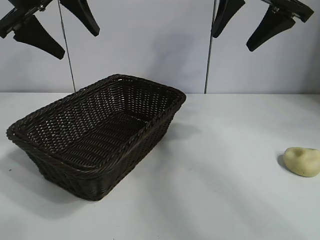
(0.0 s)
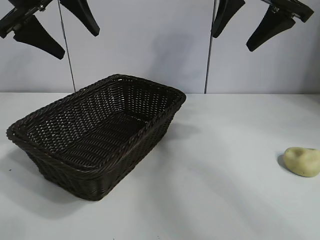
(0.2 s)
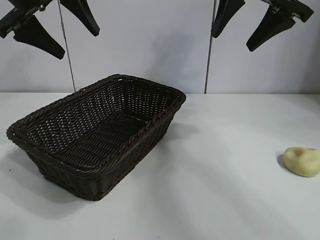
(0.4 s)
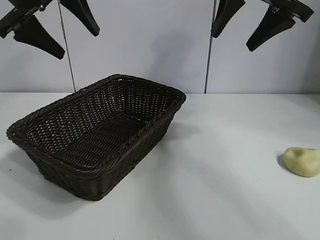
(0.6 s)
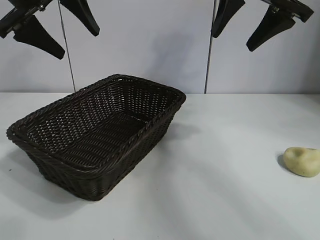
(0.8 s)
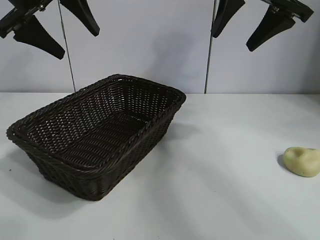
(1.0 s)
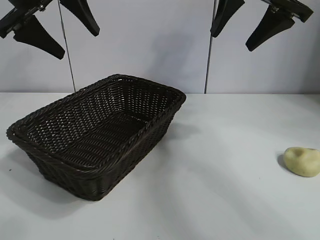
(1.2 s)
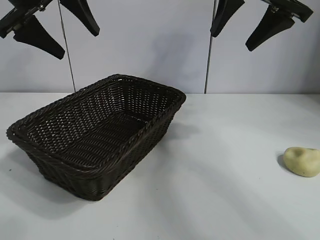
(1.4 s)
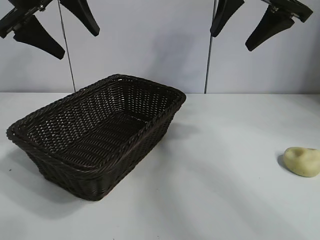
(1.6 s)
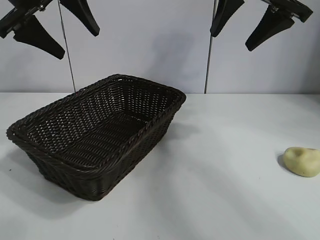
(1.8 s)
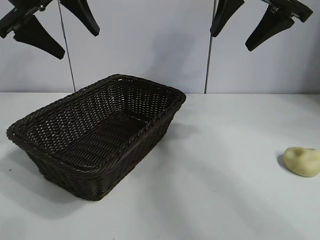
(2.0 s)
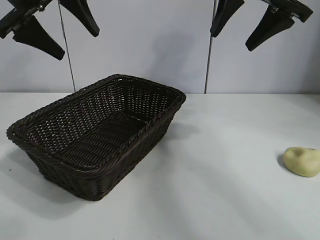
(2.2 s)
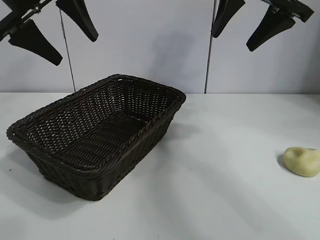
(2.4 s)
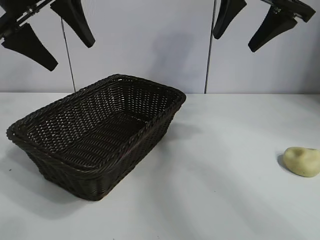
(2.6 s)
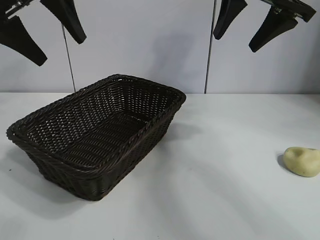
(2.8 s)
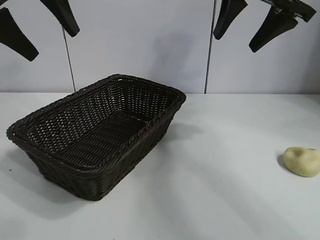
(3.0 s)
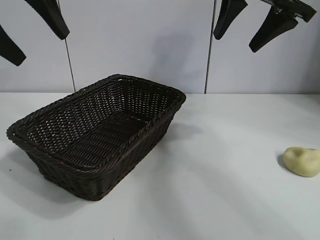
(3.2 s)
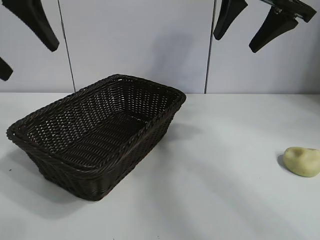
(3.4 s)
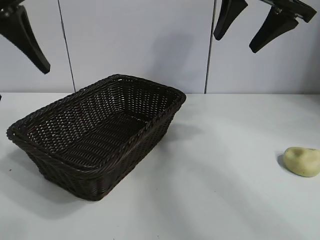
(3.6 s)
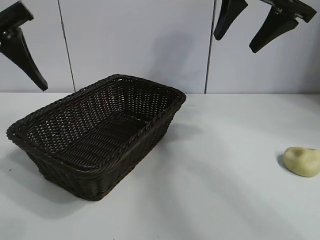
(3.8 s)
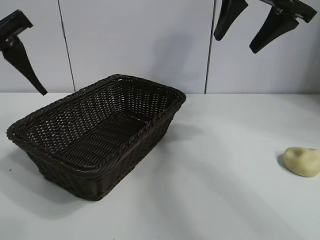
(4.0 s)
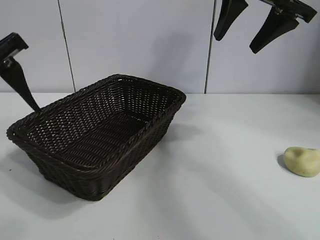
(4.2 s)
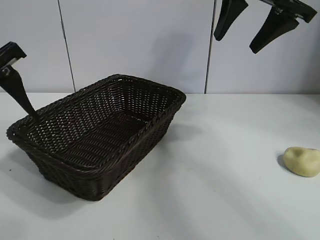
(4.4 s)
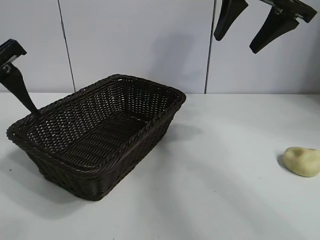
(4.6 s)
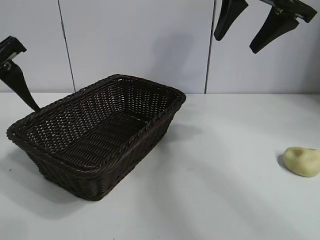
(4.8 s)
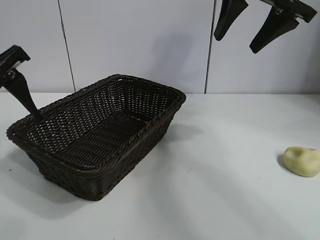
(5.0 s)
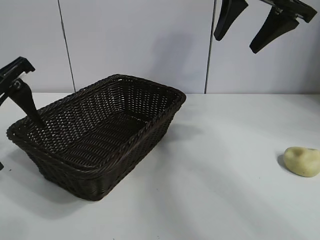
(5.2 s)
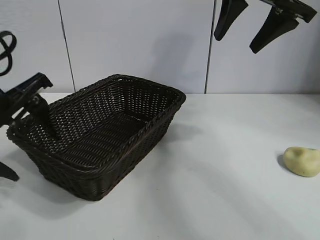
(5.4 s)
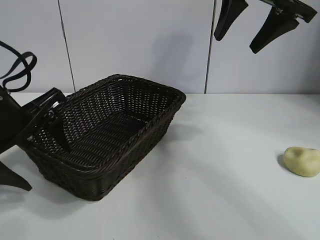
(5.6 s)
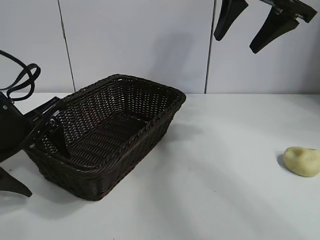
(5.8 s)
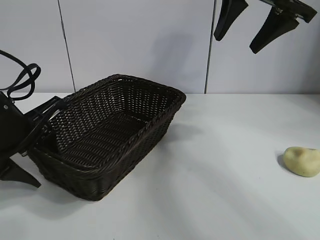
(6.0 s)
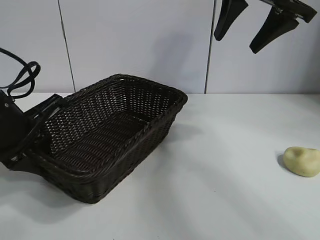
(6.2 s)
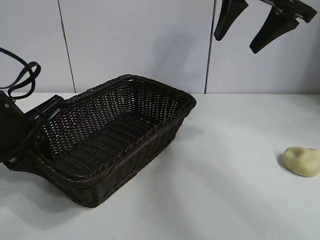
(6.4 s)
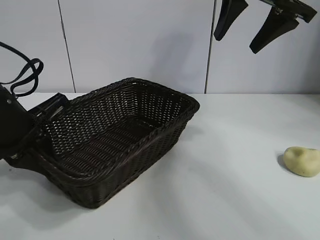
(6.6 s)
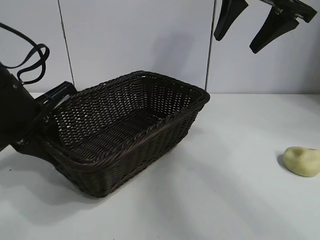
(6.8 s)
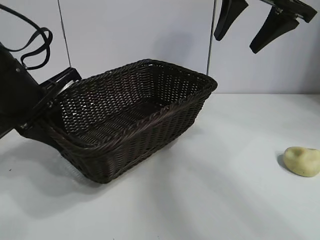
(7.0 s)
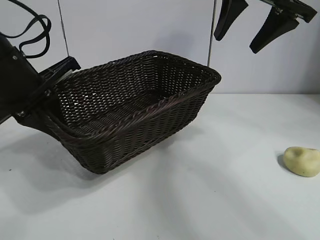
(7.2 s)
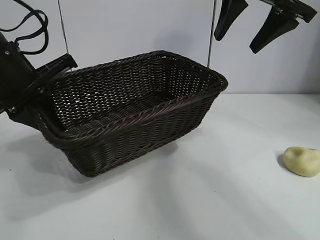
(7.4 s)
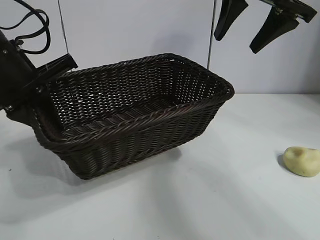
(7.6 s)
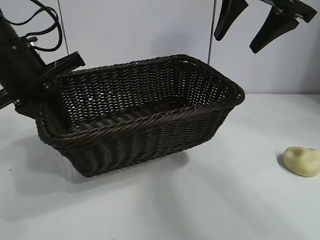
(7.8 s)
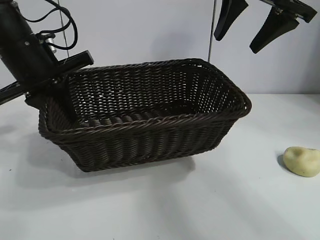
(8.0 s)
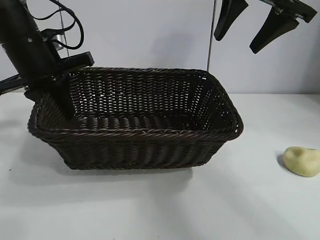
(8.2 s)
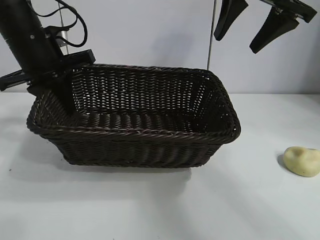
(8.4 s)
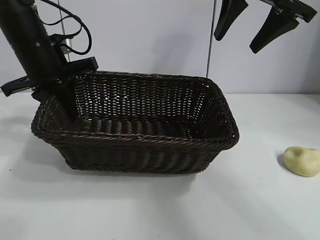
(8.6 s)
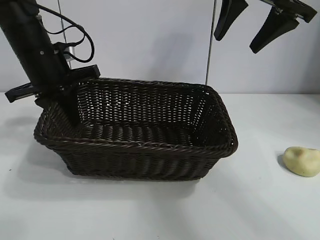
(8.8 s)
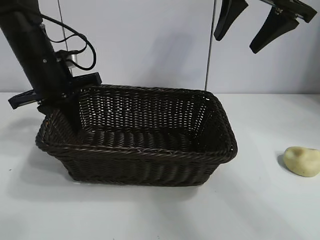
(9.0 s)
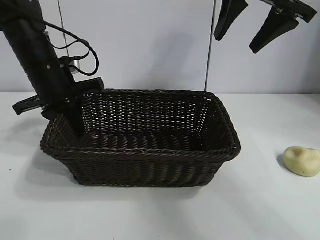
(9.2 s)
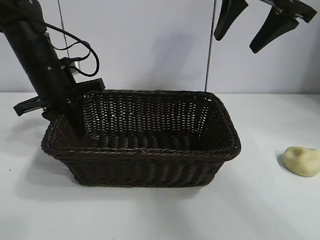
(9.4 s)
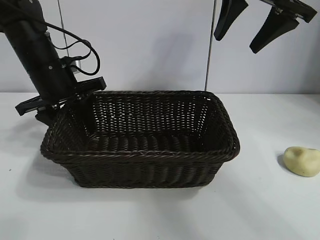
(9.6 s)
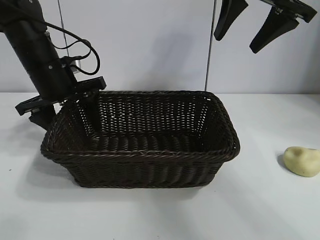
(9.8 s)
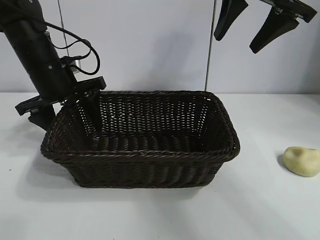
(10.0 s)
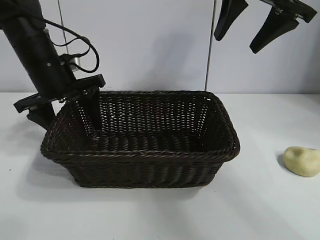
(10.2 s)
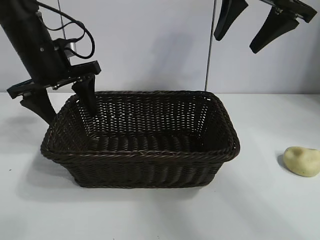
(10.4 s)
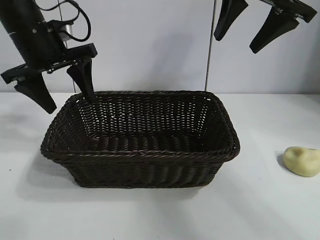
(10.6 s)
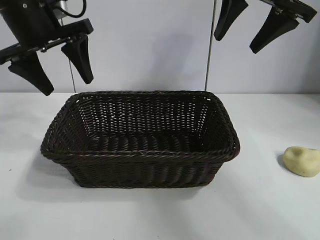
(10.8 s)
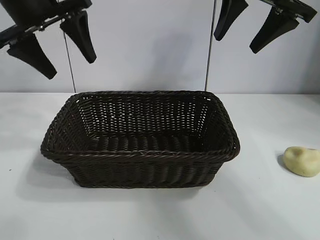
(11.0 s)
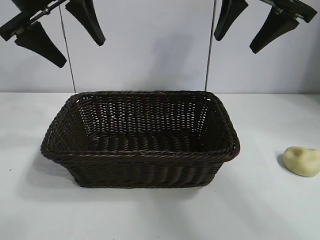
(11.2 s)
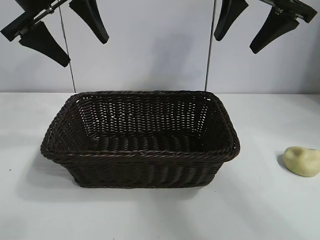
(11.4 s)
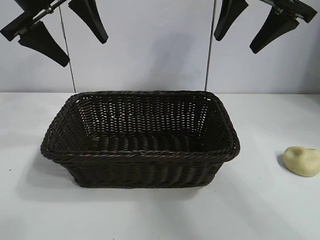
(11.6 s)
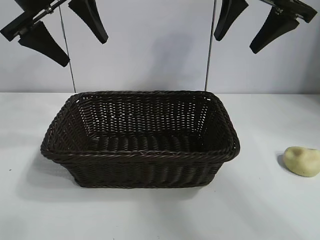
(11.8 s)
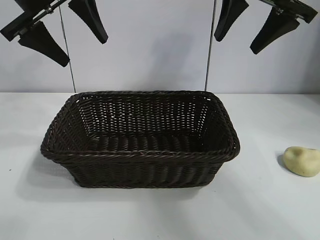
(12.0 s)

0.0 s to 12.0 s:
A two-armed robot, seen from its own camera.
Task of the whole recording: pick up the egg yolk pastry and put it into the basket.
Step, 2.2 to 6.0 s: Grasp the basket with left gripper.
Step, 6.4 to 10.0 s: Place the basket in the center of view with left gripper.

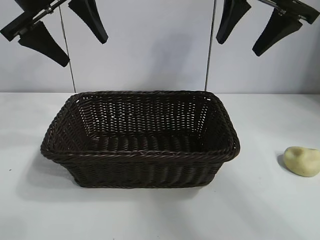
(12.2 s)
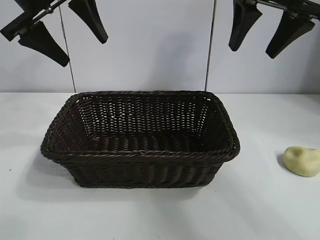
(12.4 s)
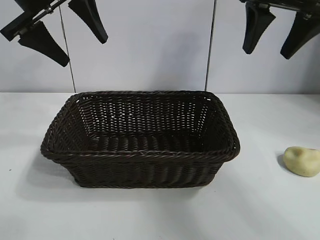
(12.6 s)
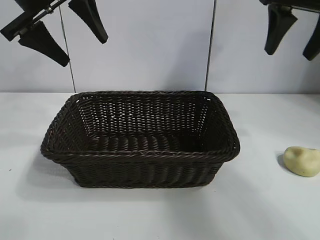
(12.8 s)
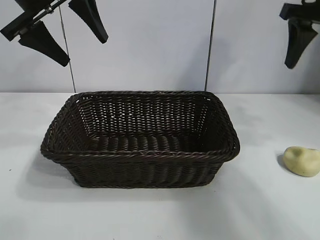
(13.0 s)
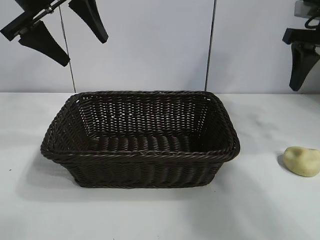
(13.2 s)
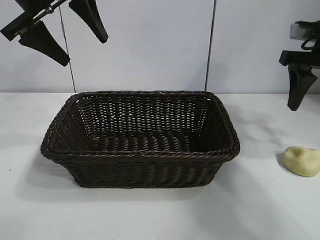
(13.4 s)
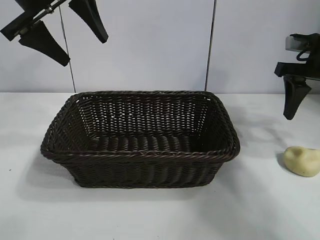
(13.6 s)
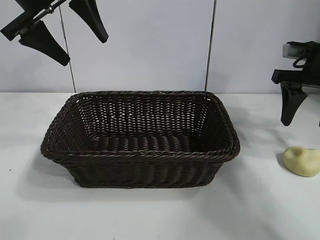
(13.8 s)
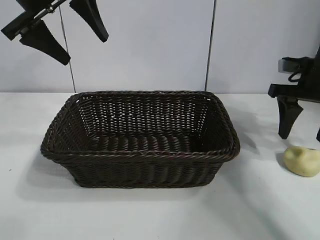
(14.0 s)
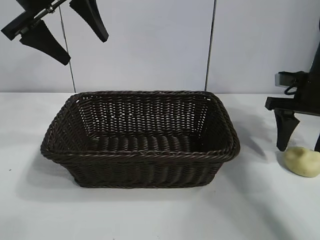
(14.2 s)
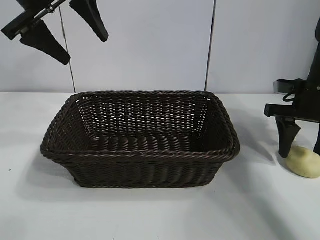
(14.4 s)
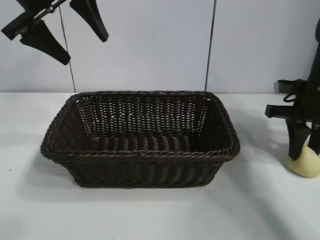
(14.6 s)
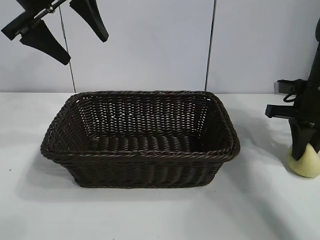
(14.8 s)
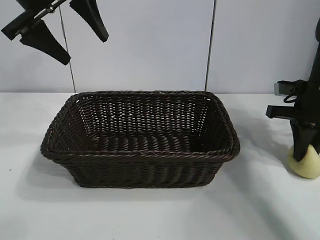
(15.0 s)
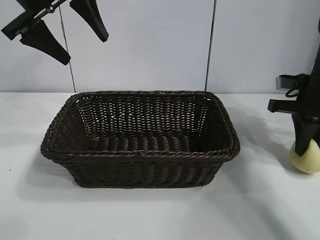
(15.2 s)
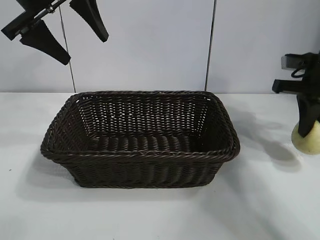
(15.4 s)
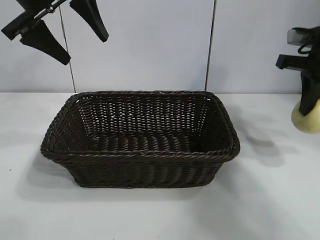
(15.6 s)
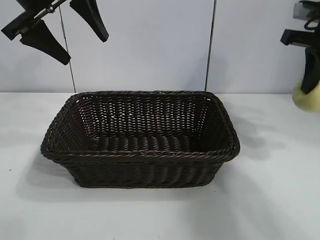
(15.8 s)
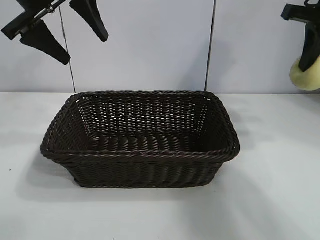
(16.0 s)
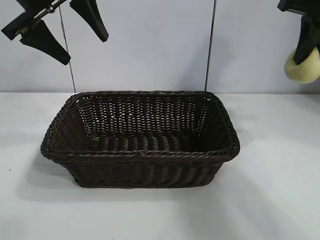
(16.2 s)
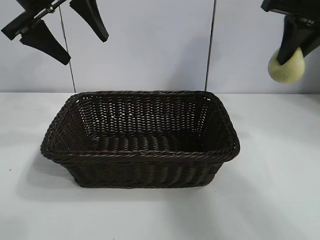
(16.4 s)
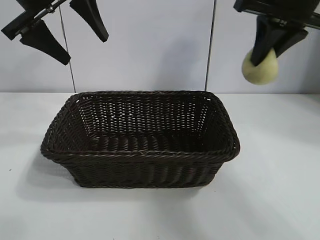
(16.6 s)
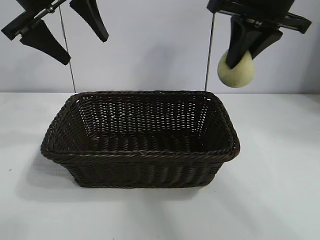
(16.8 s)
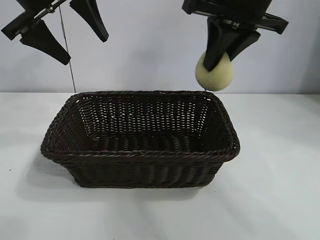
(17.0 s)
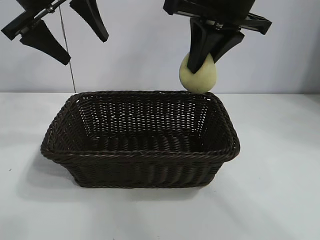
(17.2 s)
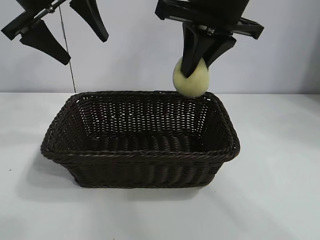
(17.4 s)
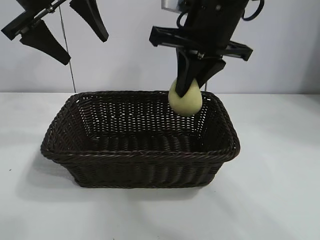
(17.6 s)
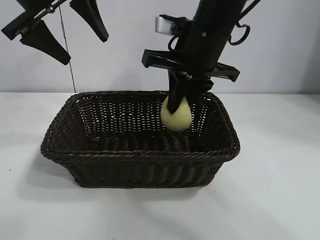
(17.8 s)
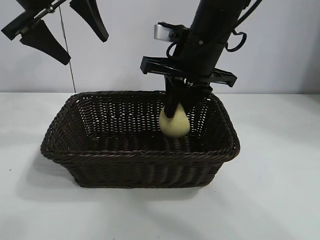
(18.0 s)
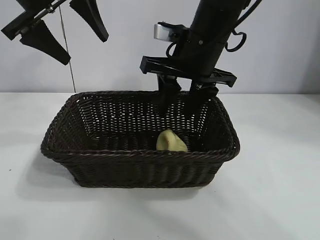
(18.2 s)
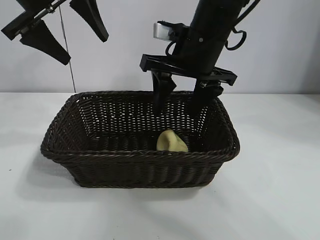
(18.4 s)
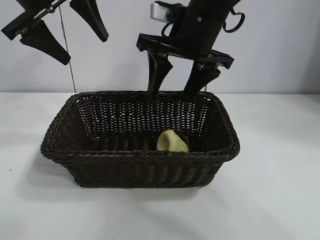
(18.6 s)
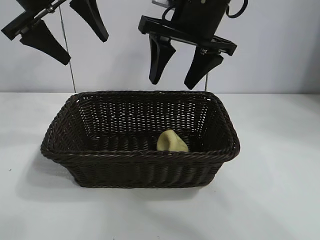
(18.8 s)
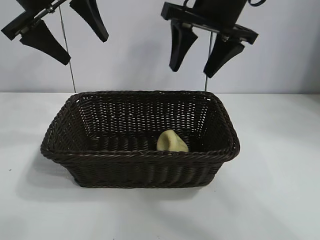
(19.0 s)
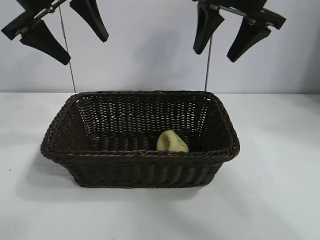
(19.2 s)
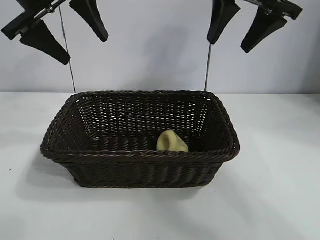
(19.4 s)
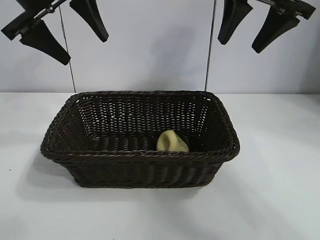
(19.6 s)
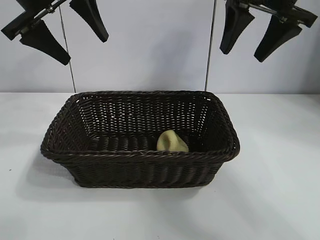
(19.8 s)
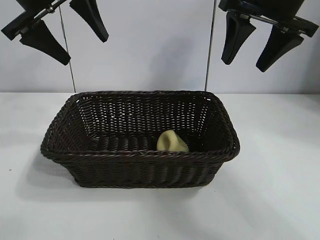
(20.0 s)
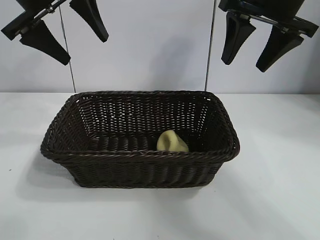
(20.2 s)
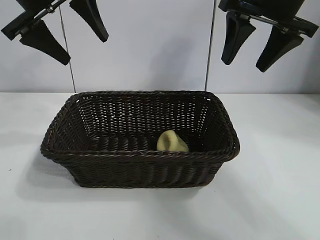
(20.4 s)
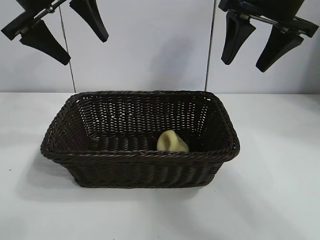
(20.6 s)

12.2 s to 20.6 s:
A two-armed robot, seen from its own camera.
Task of the whole recording: pick up the egg yolk pastry and put it into the basket.
Step, 12.2 to 14.8 s: Grasp egg yolk pastry with right gripper.
Step, 15.0 to 18.4 s: Place the egg yolk pastry in the basket with right gripper.

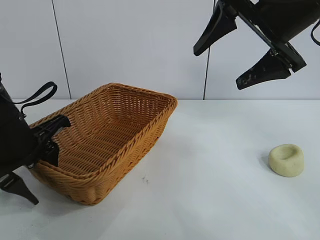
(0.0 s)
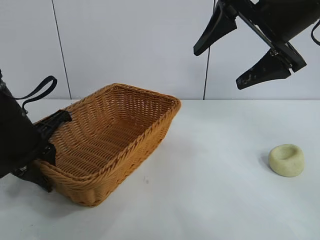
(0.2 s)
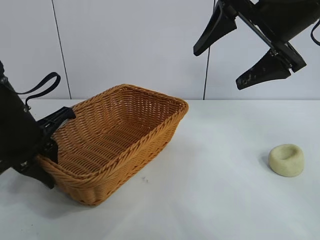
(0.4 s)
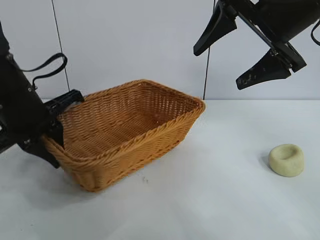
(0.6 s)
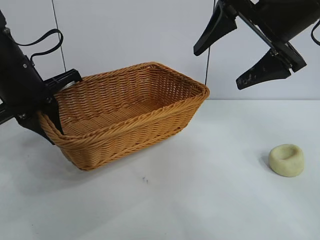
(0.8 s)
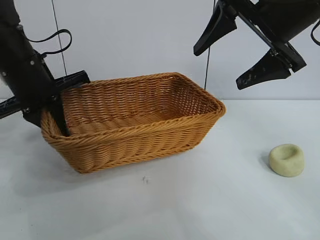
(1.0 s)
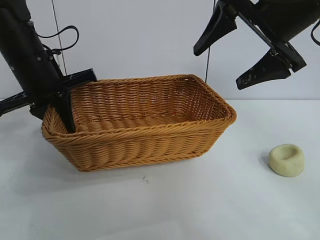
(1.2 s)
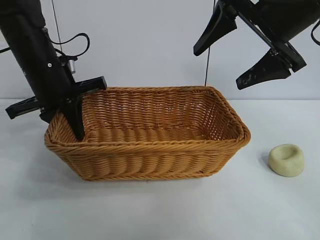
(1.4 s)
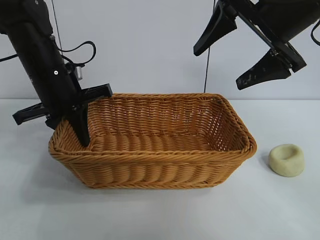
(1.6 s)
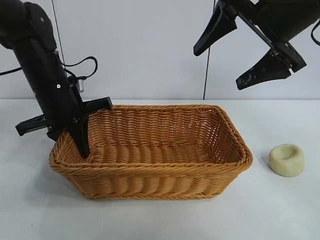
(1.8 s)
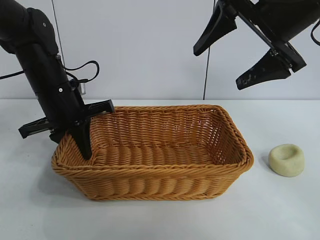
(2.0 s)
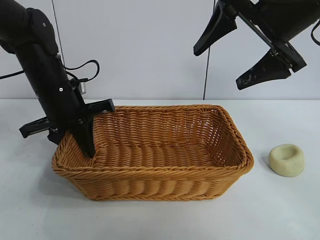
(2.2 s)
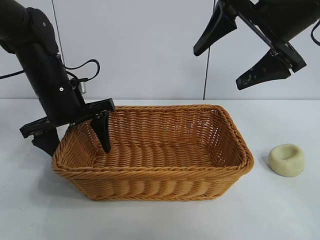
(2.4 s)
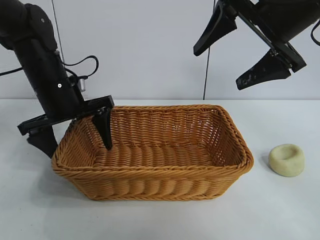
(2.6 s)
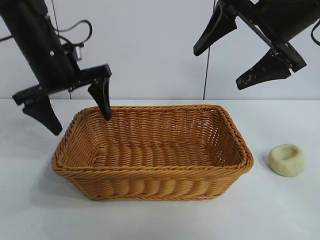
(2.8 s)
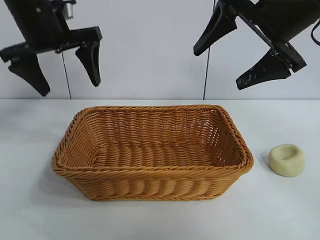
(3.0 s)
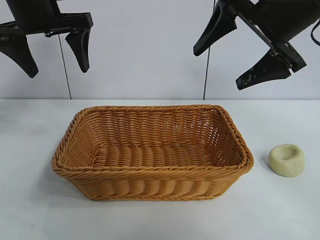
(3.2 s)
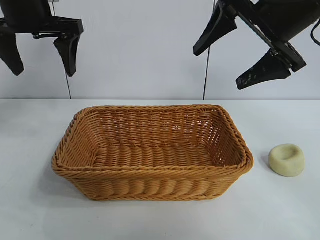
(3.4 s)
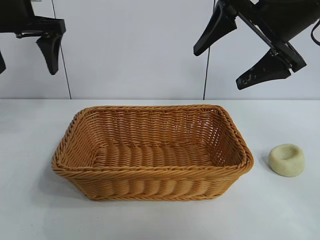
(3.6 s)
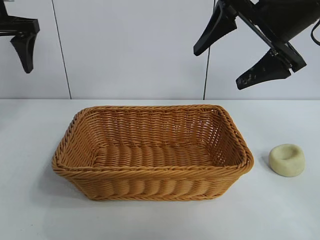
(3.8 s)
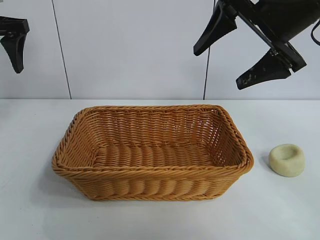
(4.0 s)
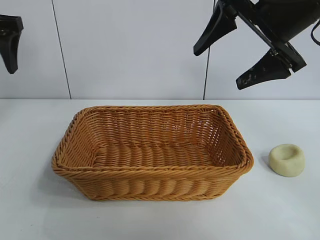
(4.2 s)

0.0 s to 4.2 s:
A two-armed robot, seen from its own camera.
Task of the whole recording: pick up the egg yolk pastry and put it into the basket.
Step, 0.4 to 2.4 s: Place the basket in the center of view with left gripper.
